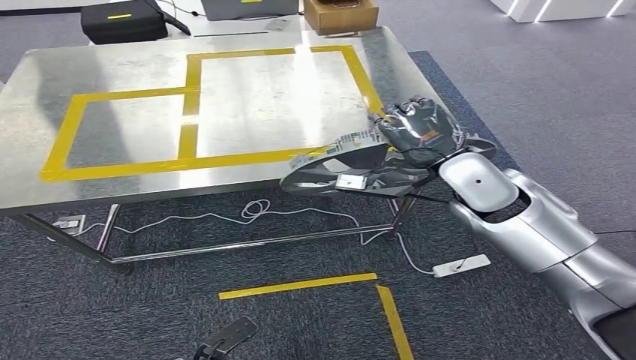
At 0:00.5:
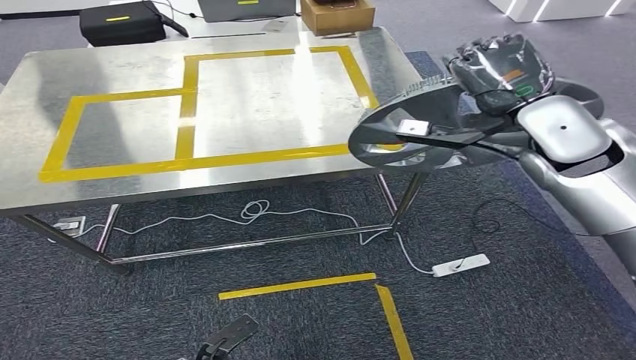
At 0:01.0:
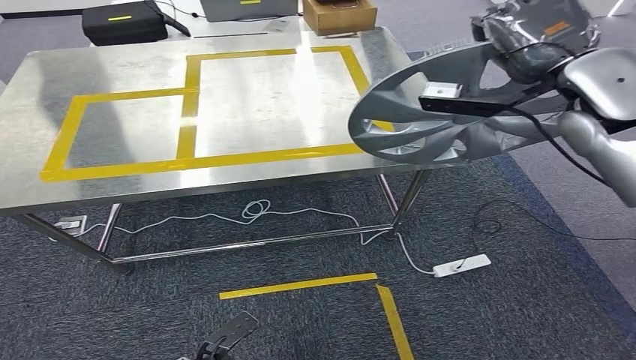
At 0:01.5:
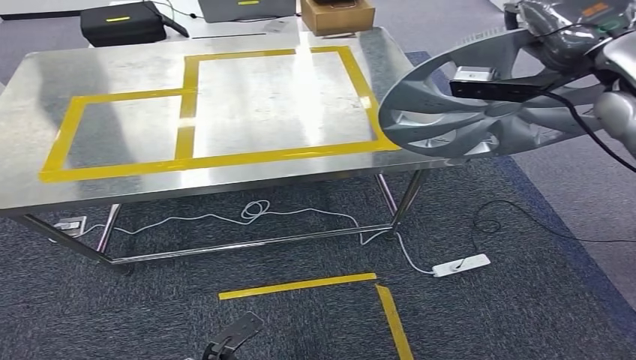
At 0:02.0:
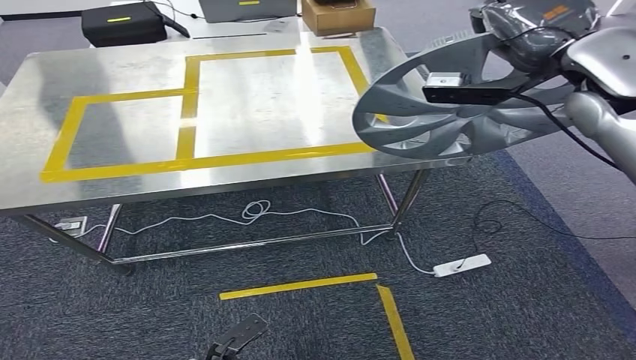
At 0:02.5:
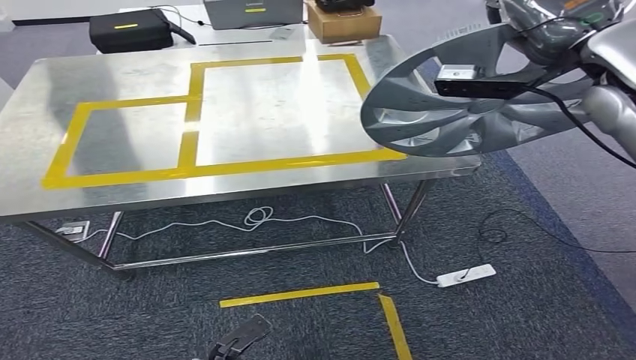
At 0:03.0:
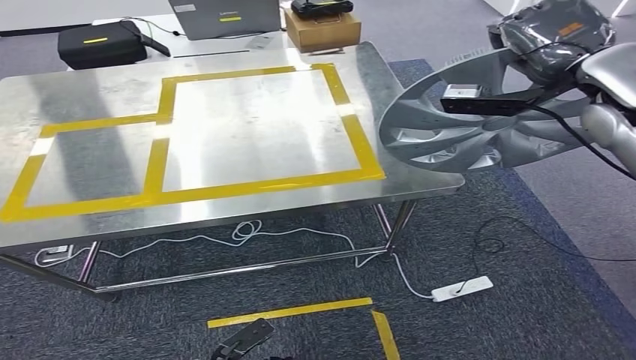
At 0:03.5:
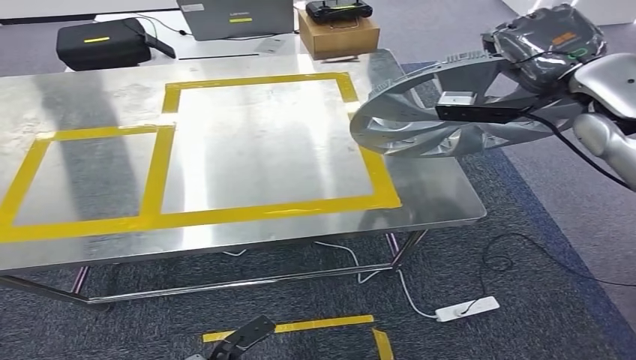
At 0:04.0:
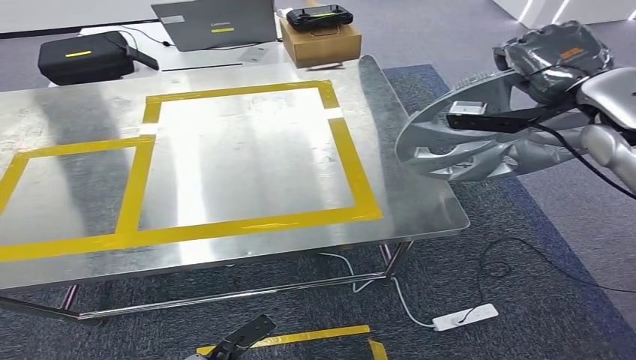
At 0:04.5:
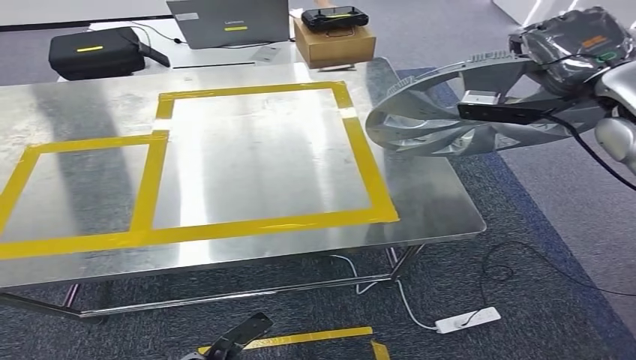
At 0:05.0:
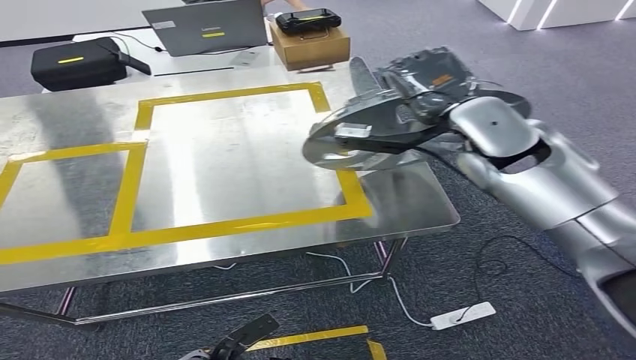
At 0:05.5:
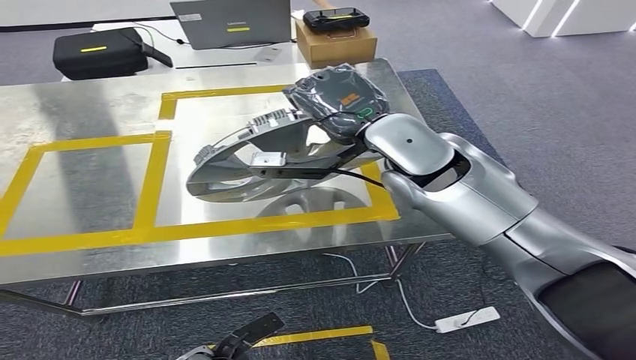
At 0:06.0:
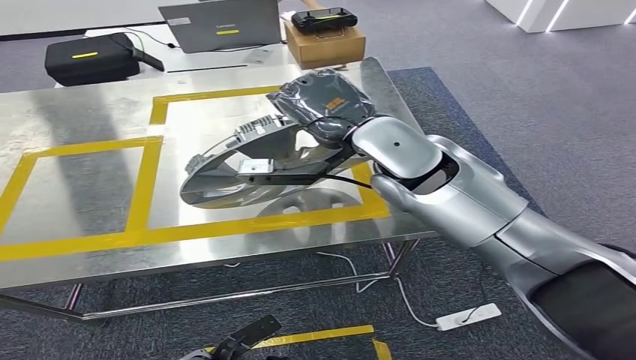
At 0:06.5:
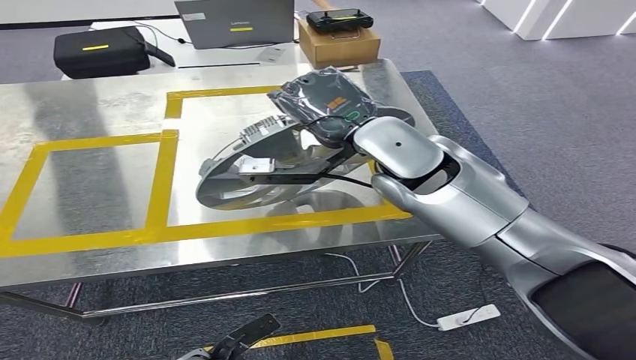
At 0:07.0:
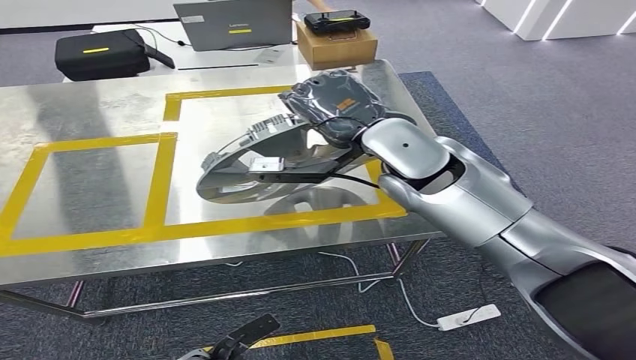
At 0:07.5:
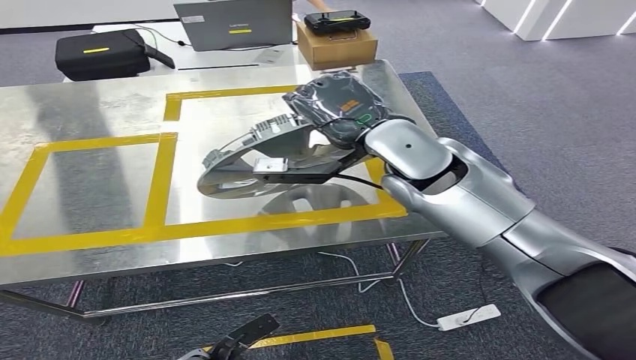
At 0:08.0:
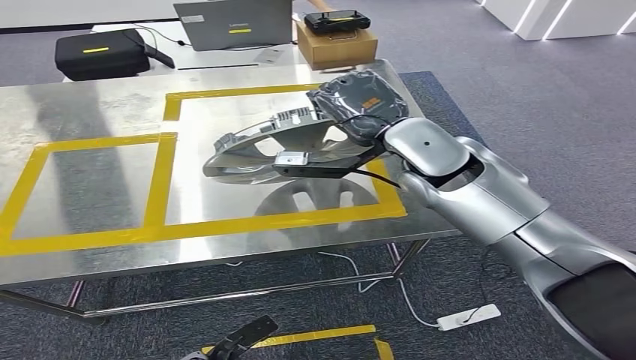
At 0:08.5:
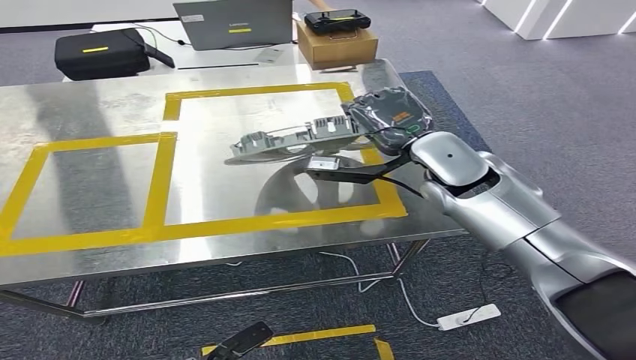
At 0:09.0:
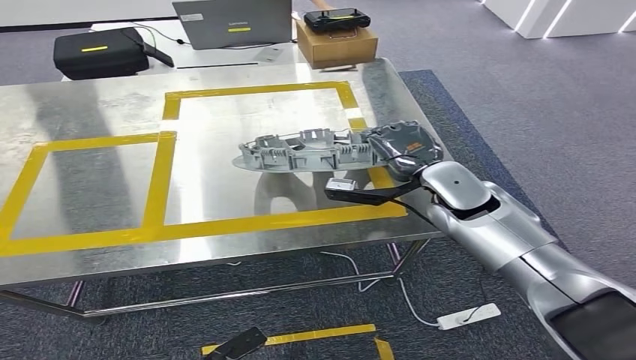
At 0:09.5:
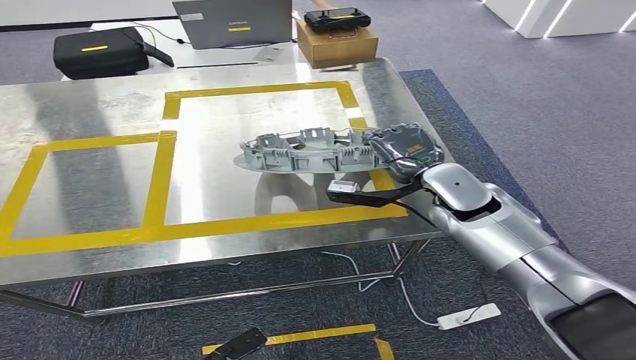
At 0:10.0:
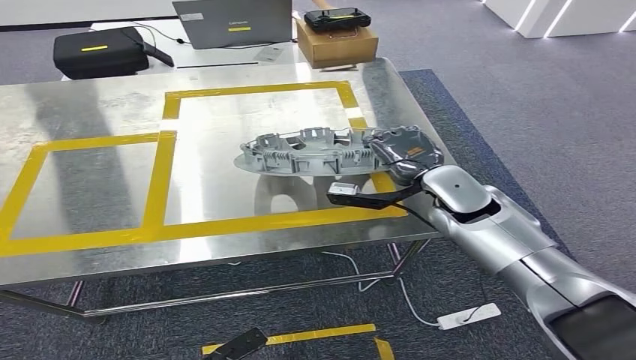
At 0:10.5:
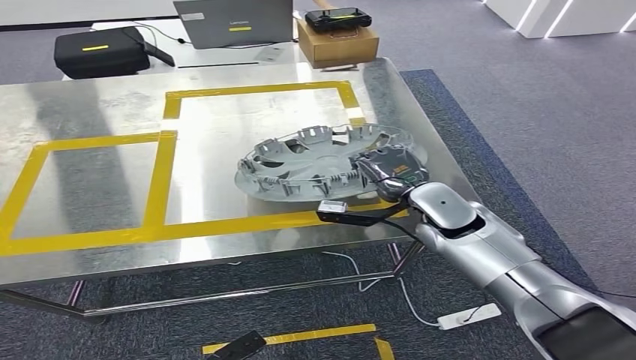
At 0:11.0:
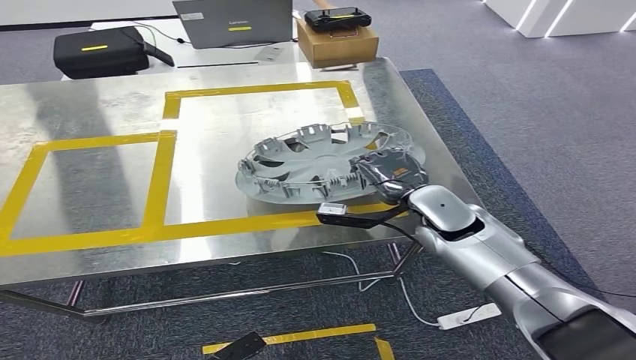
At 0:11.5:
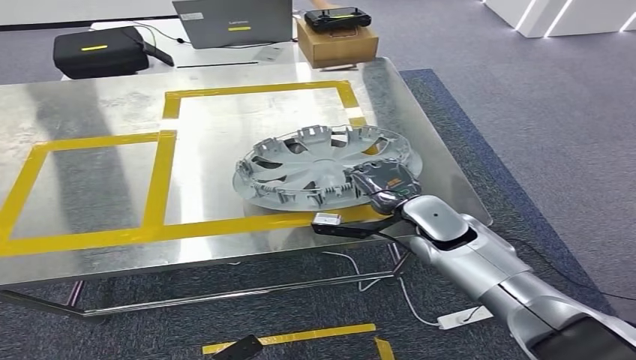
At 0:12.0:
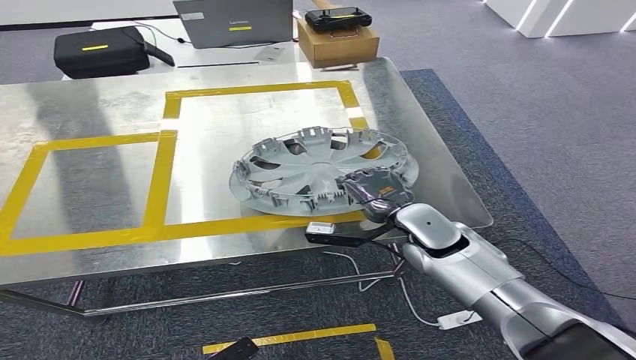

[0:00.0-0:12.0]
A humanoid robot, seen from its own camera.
0:10.0 to 0:12.0: The right hand travels downward by roughly 5 cm.

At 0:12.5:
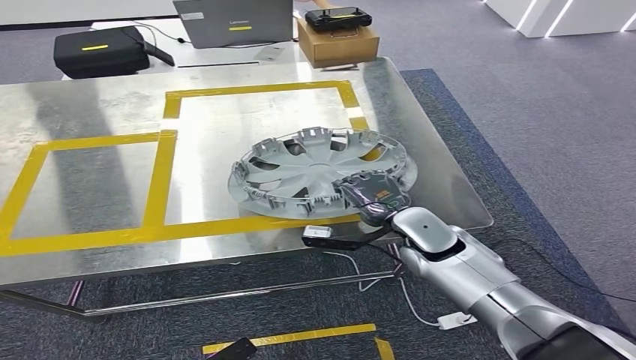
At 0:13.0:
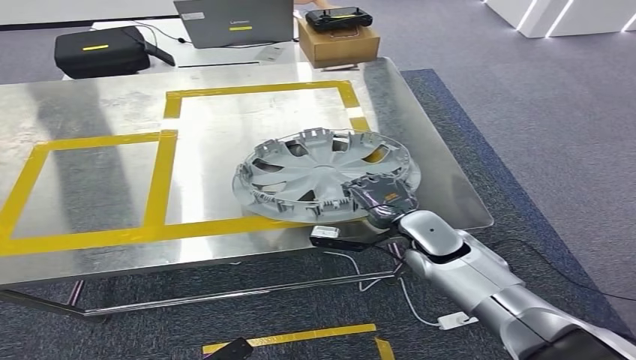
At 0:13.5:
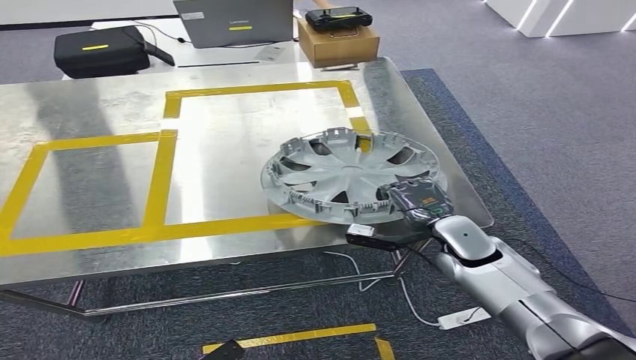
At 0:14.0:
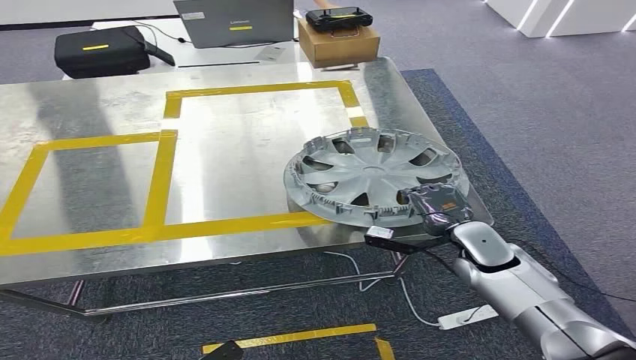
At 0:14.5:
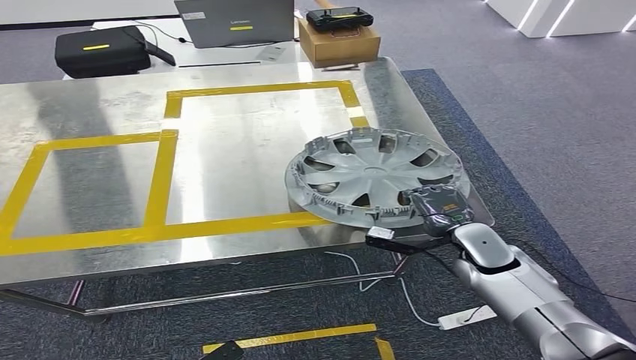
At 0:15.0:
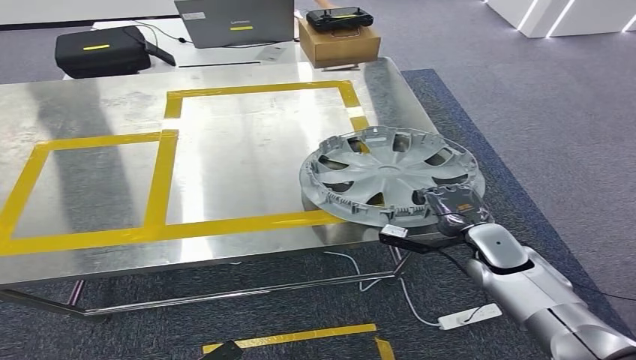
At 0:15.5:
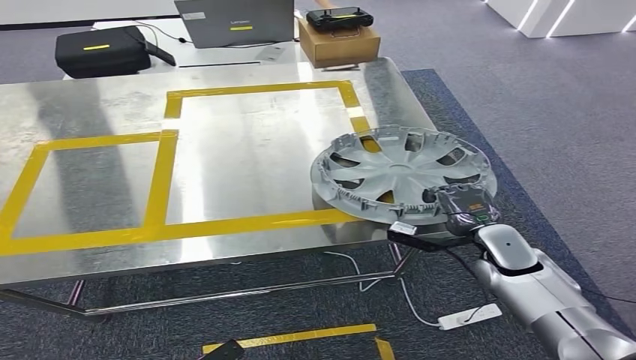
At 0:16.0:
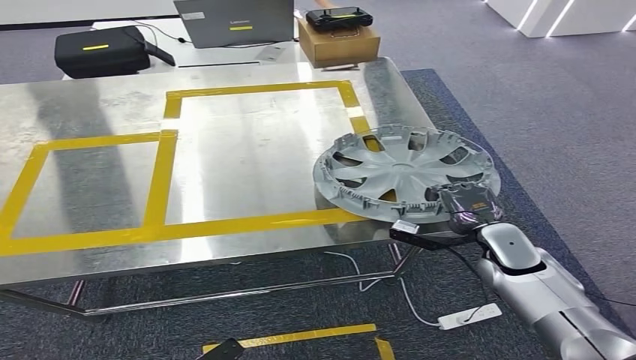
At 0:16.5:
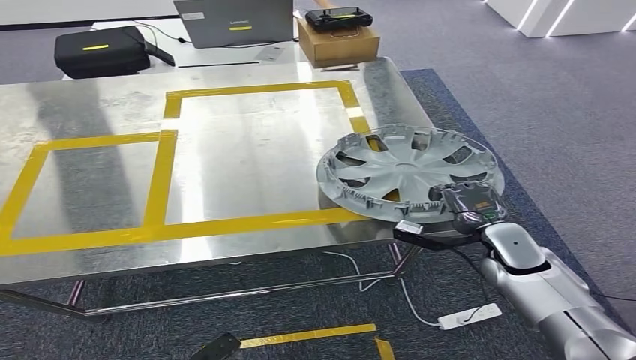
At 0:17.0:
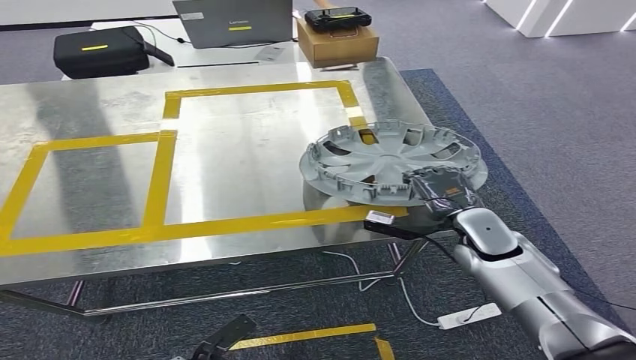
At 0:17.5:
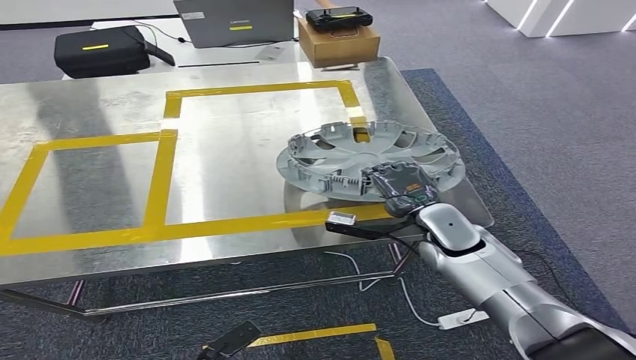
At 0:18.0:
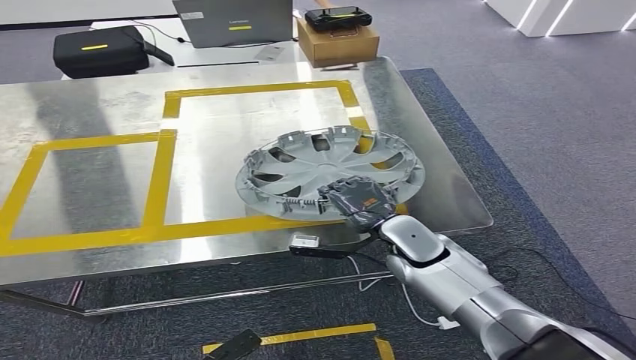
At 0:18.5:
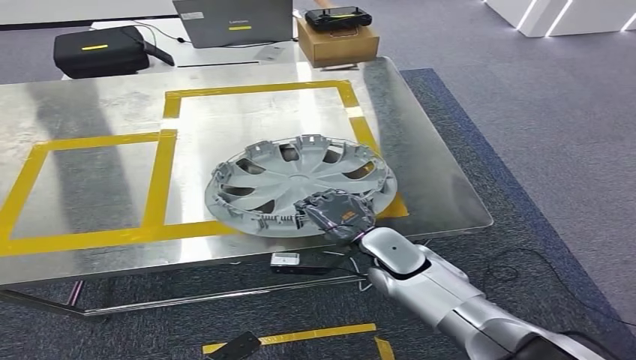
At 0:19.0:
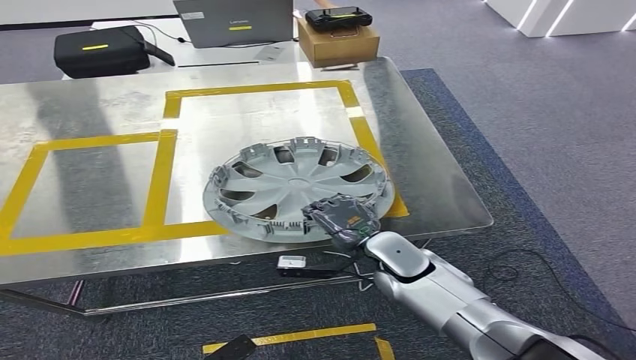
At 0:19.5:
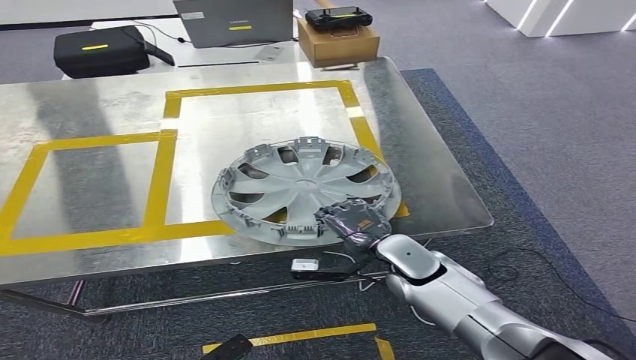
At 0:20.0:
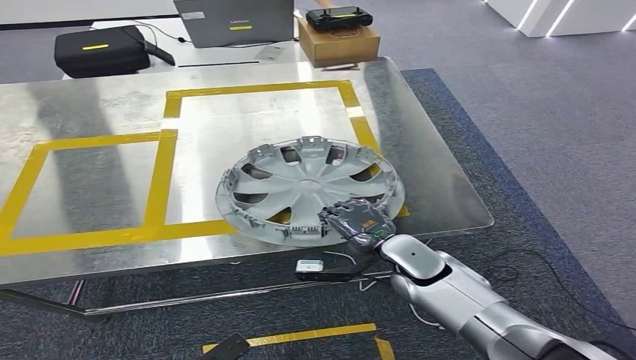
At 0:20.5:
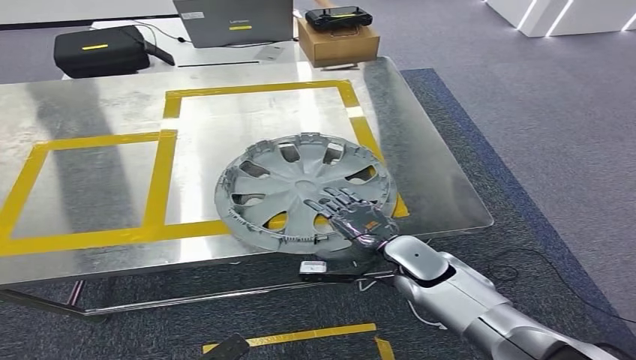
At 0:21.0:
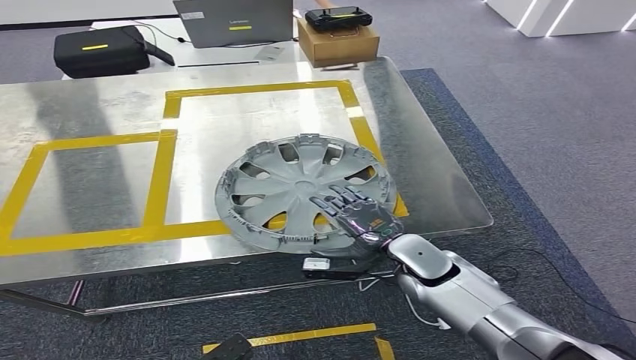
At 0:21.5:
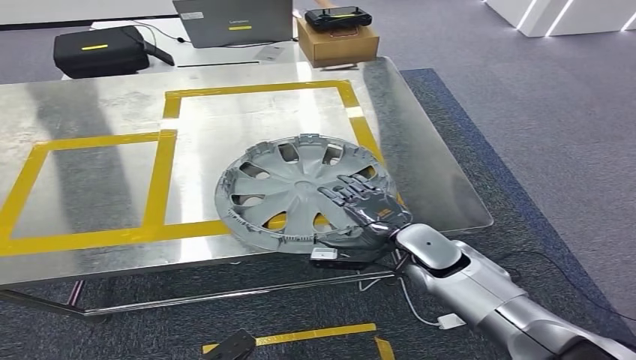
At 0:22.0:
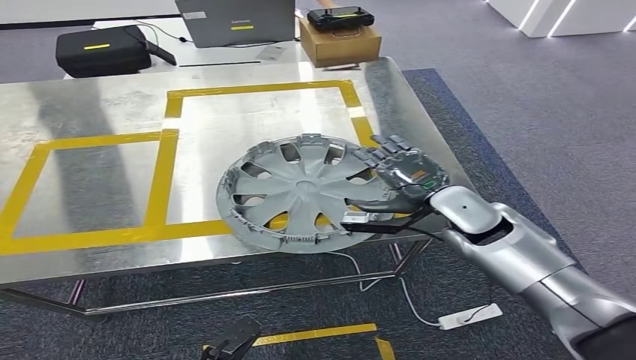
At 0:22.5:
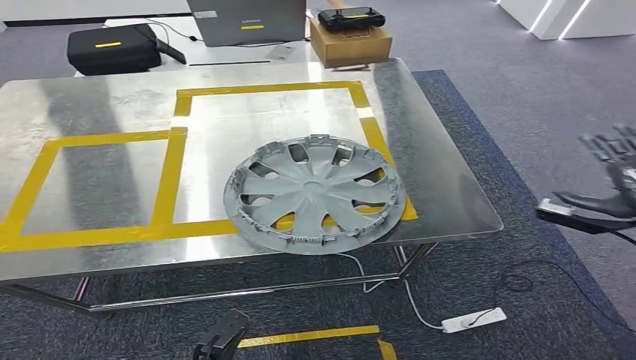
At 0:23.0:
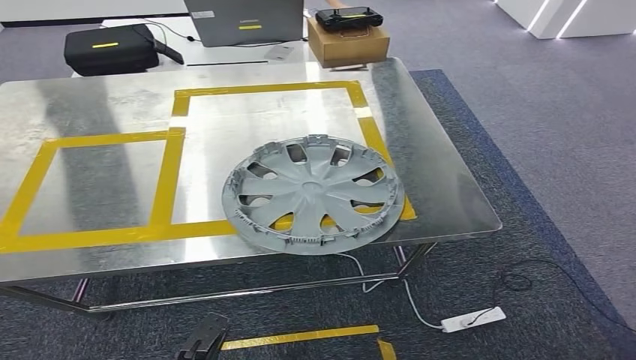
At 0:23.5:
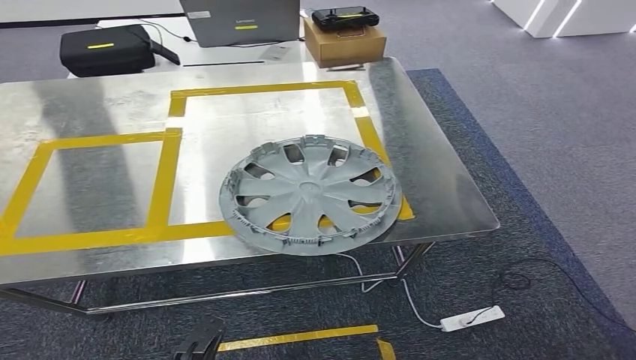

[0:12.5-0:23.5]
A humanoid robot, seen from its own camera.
Step, 0:12.5 to 0:20.0: Insert the small parts into the corresponding holes on the workbench.
0:12.5 to 0:14.5: The right hand shifts about 10 cm to the right and downward.
0:14.5 to 0:16.0: The hands move only a little.
0:16.0 to 0:18.0: The right hand shifts approximately 15 cm to the left.
0:18.0 to 0:21.5: The hands stay close to where they were, moving slightly.
0:21.5 to 0:23.5: The right hand goes roughly 50 cm to the right and backward.
